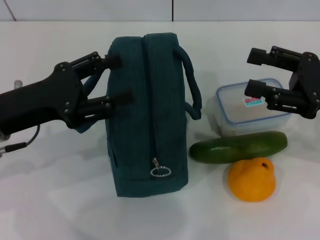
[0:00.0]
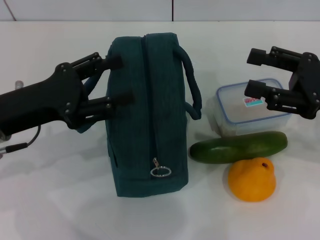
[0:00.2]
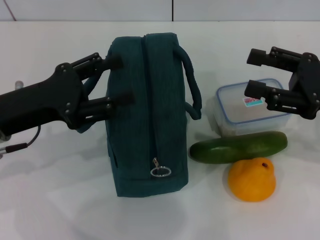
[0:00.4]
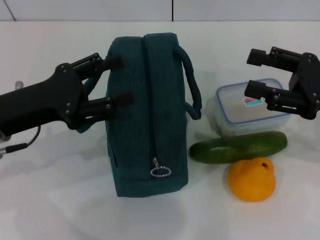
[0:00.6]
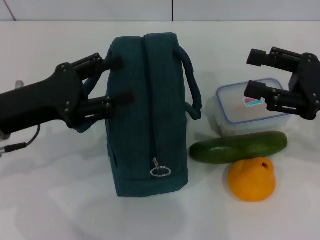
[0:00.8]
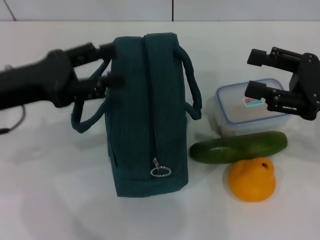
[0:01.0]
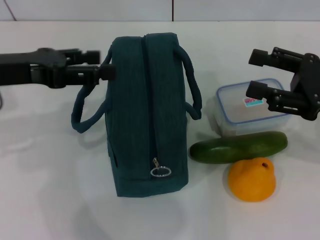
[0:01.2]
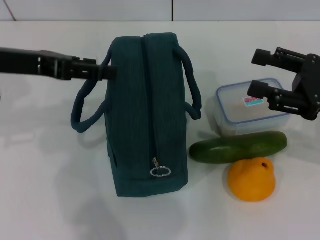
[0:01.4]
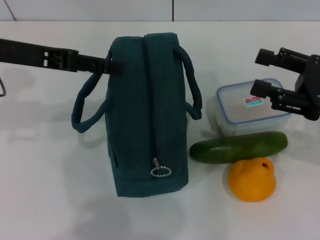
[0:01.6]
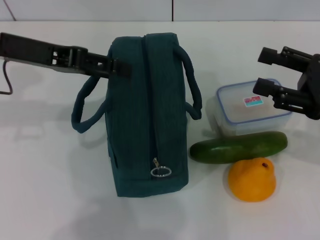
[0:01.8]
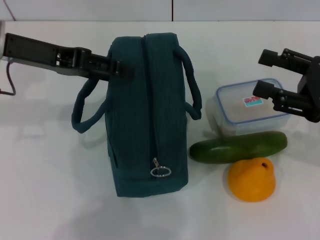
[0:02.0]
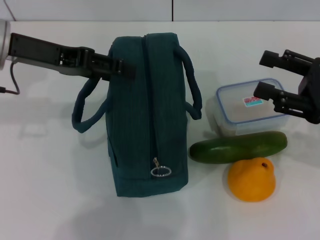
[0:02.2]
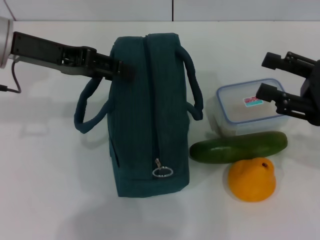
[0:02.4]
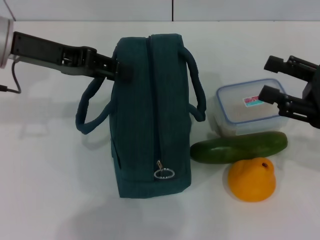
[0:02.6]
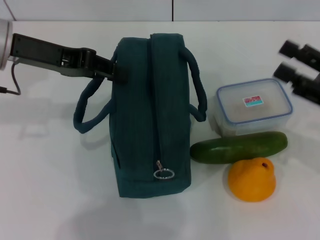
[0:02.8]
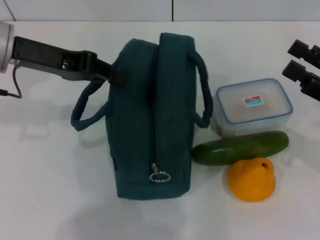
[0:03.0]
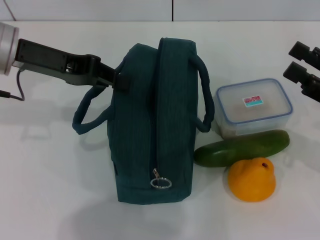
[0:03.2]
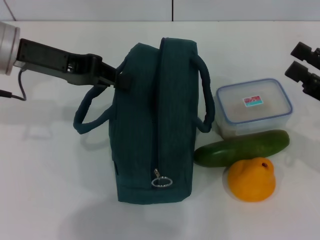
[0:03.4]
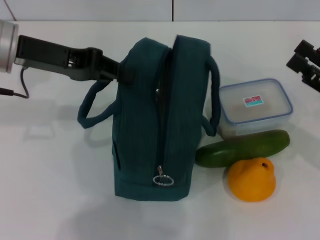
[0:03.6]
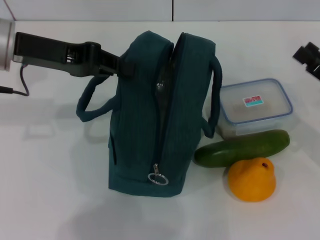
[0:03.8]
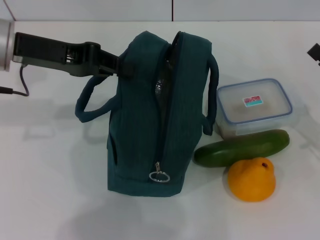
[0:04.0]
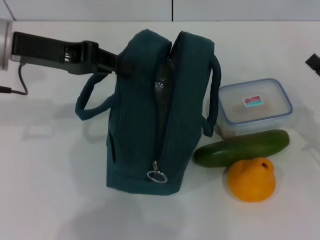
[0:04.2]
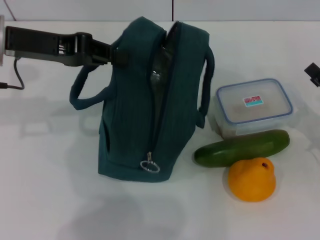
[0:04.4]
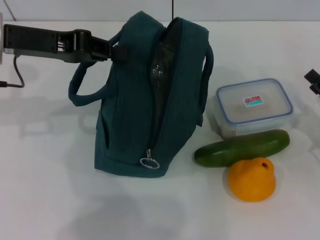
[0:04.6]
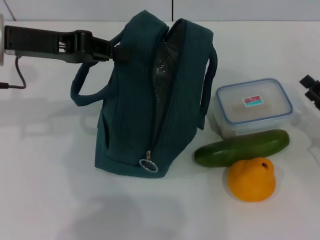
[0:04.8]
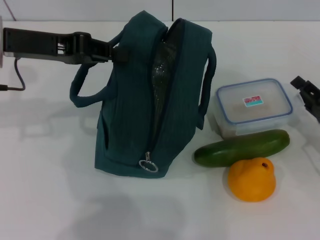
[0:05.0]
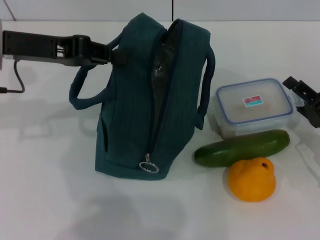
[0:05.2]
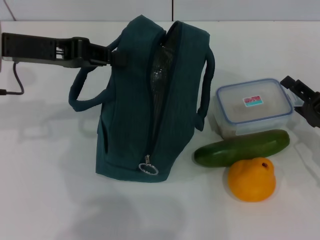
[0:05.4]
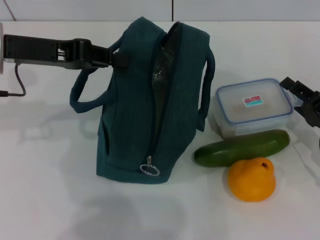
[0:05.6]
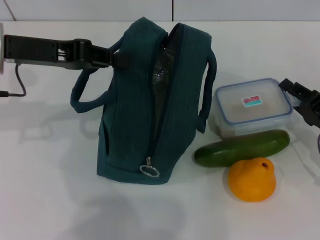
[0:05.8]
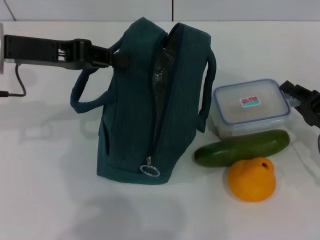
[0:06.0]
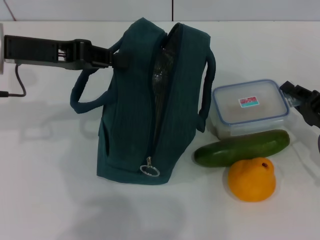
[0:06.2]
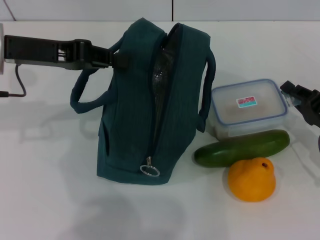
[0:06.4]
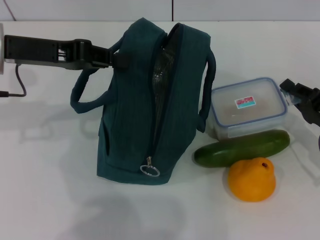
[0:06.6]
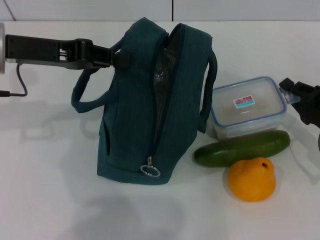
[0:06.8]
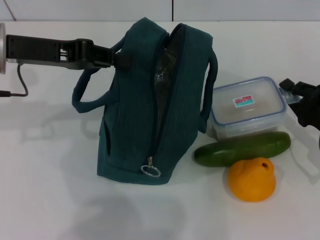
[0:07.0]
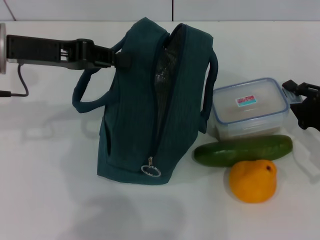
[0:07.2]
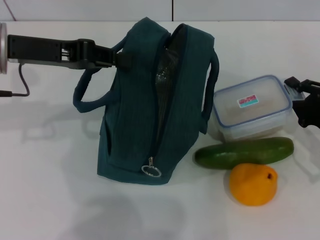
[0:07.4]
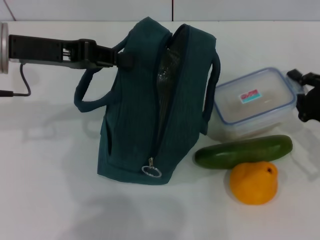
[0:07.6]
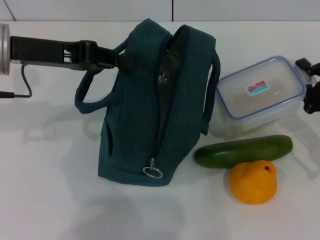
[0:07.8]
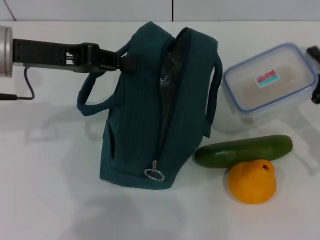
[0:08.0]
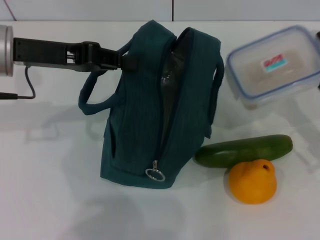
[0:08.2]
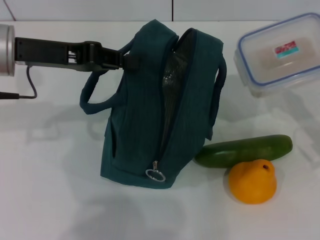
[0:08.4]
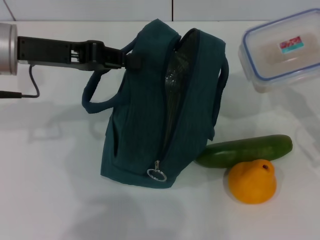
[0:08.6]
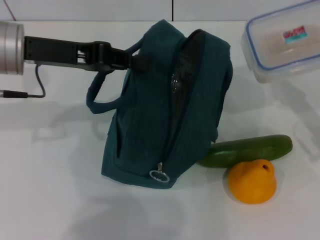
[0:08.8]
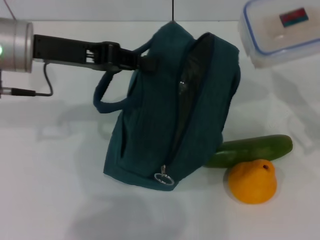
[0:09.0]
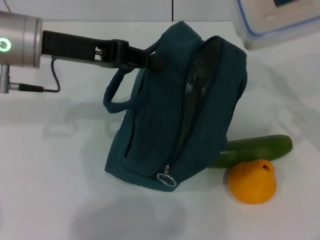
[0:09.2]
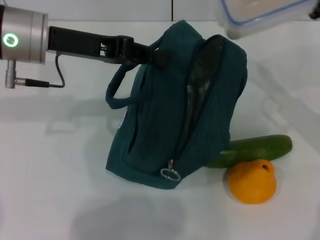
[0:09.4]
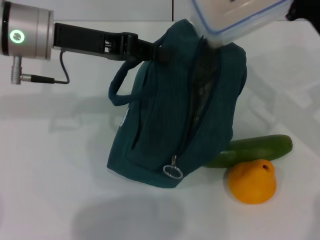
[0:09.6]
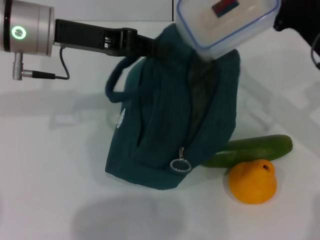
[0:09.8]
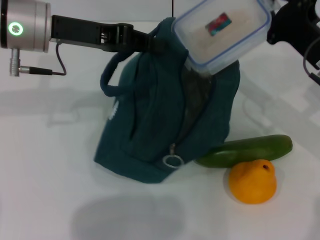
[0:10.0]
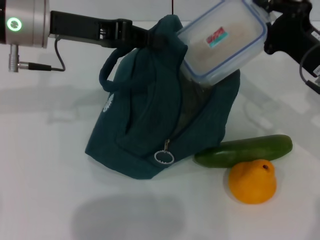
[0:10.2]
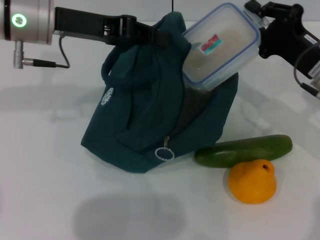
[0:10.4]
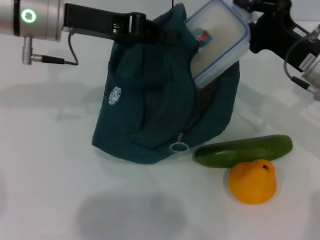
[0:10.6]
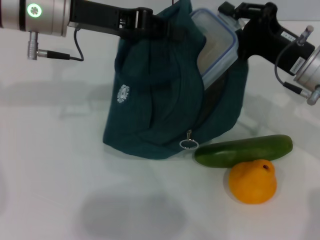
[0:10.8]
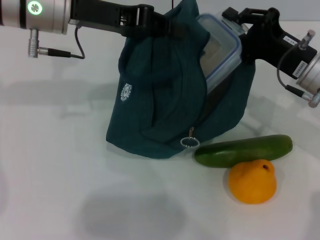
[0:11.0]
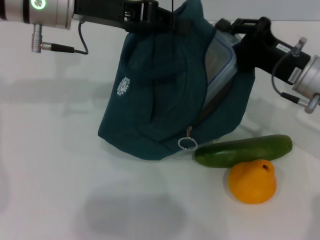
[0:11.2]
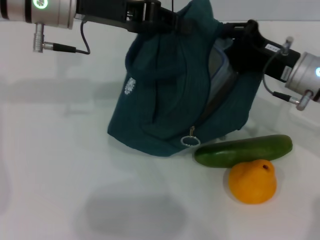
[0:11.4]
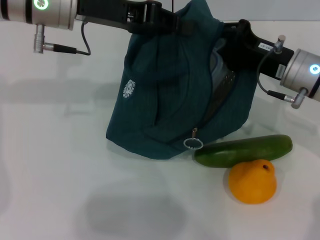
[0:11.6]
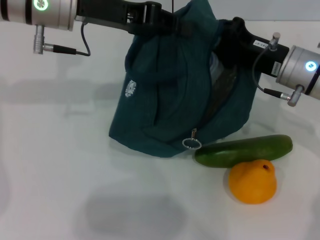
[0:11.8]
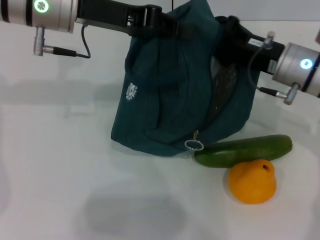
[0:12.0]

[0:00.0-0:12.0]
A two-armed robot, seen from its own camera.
Step, 0:00.0 to 0:03.2: Hold the lunch bag with your left hand.
Step, 0:03.4 to 0:06.8: Pick up the lunch box with your right hand.
0:00.0 to 0:01.6: The left gripper moves upward and forward, about 10 cm.
0:01.6 to 0:03.0: The left gripper closes.
0:03.0 to 0:04.4: The right gripper heads downward, covering some 5 cm.
0:04.4 to 0:06.0: There are only small adjustments of the grippers.
0:06.0 to 0:07.6: The right gripper closes.
0:07.6 to 0:09.0: The right gripper moves upward, some 5 cm.
0:09.0 to 0:10.4: The right gripper shifts roughly 10 cm to the left and forward.
0:10.4 to 0:12.0: The right gripper shifts by some 5 cm.

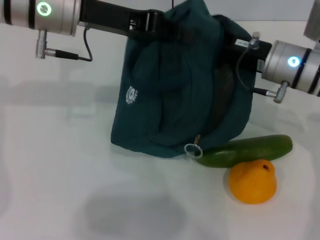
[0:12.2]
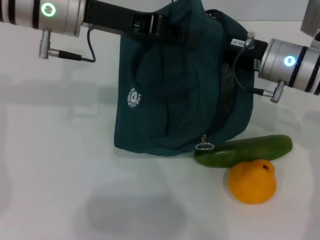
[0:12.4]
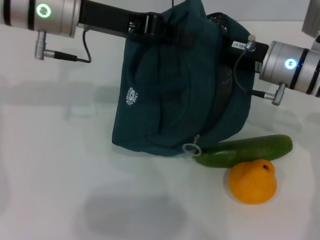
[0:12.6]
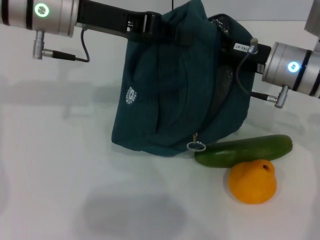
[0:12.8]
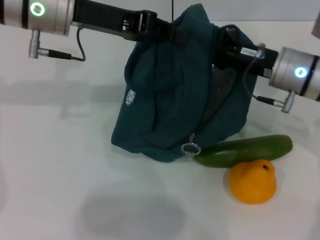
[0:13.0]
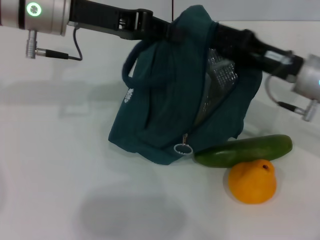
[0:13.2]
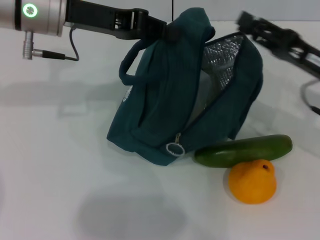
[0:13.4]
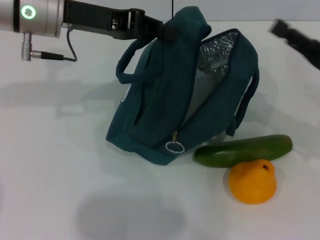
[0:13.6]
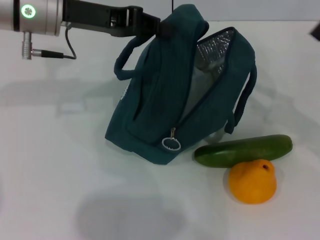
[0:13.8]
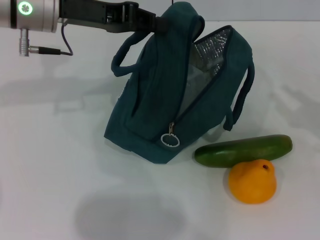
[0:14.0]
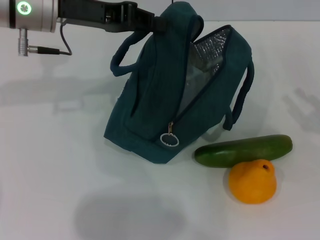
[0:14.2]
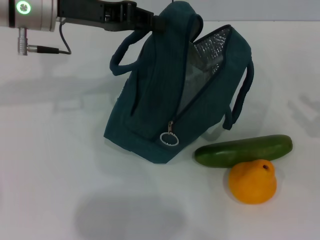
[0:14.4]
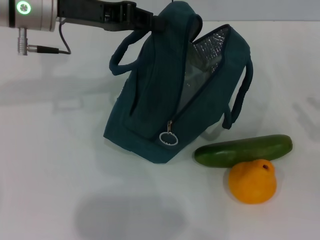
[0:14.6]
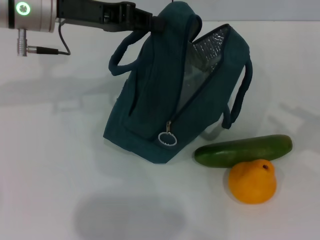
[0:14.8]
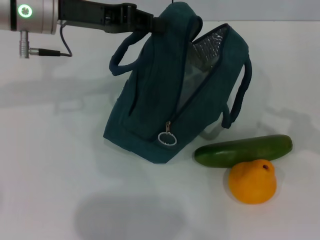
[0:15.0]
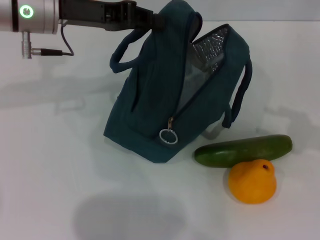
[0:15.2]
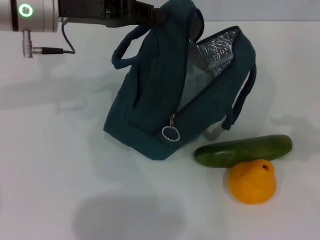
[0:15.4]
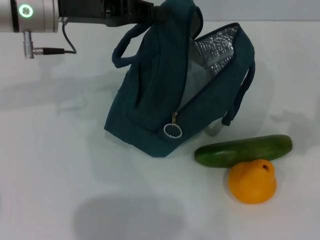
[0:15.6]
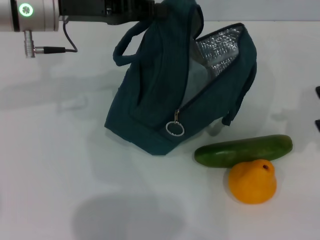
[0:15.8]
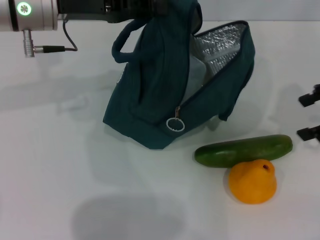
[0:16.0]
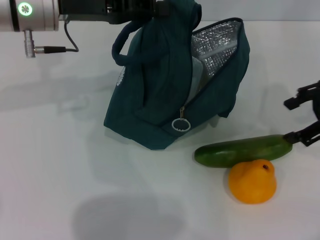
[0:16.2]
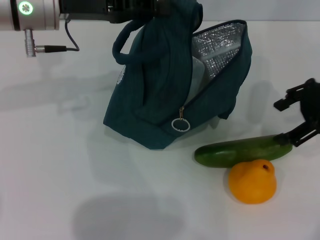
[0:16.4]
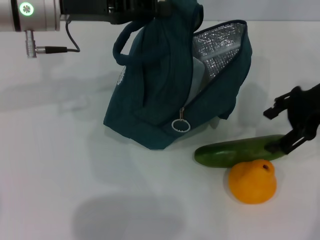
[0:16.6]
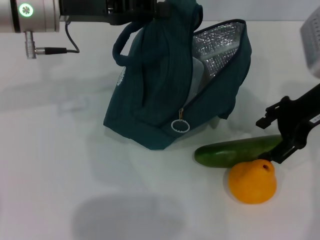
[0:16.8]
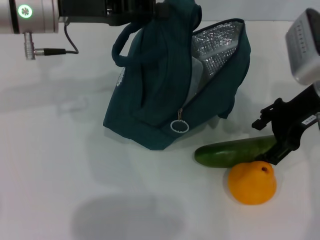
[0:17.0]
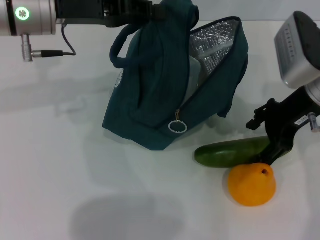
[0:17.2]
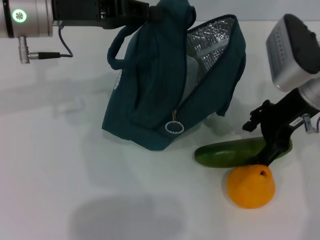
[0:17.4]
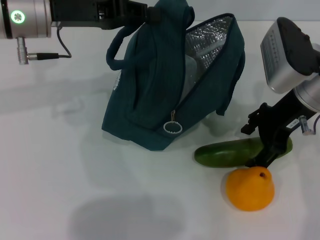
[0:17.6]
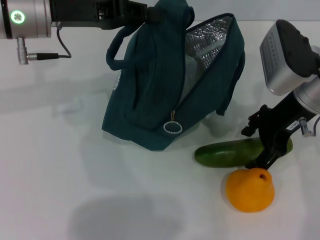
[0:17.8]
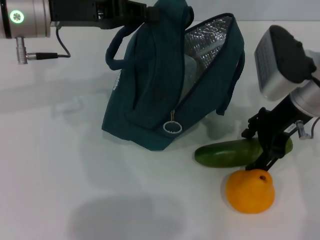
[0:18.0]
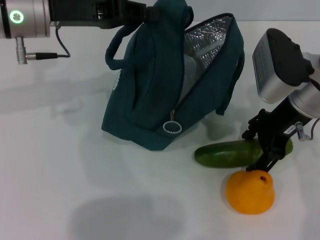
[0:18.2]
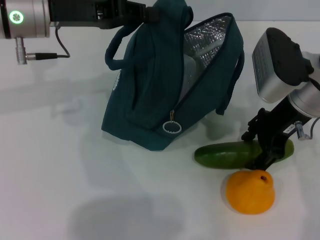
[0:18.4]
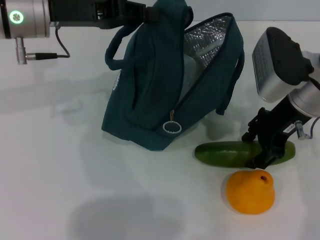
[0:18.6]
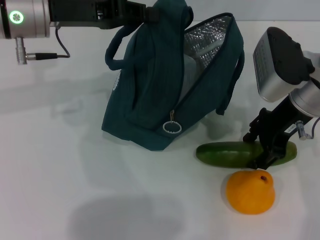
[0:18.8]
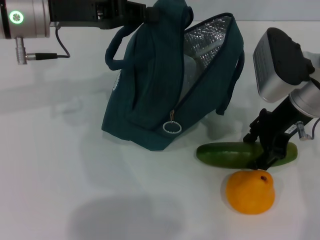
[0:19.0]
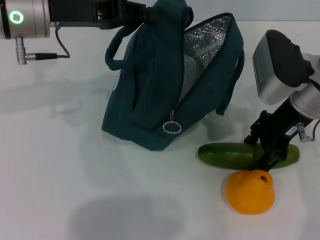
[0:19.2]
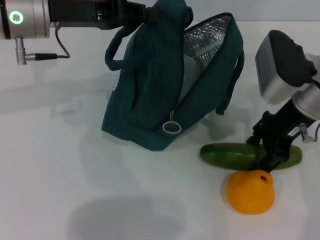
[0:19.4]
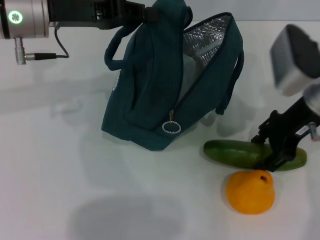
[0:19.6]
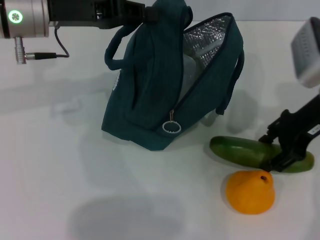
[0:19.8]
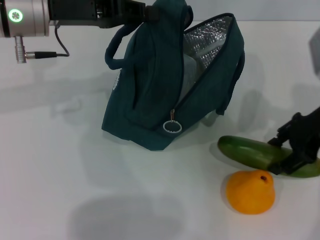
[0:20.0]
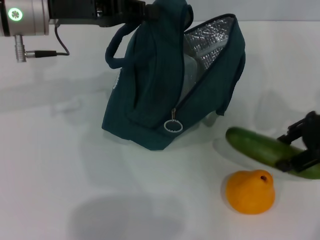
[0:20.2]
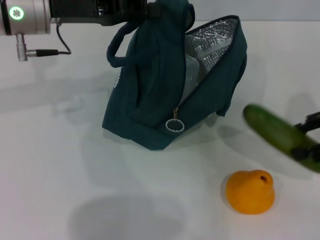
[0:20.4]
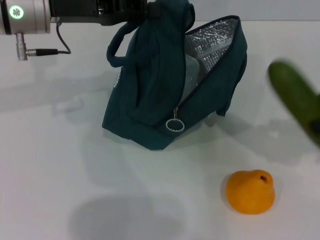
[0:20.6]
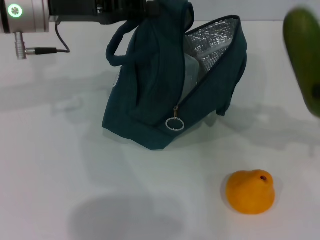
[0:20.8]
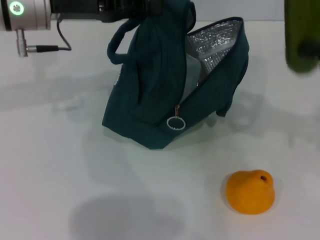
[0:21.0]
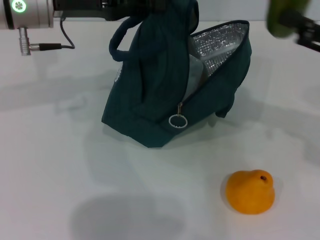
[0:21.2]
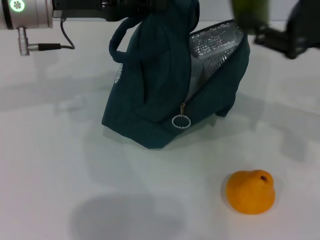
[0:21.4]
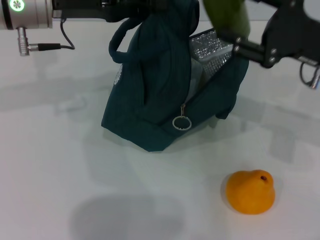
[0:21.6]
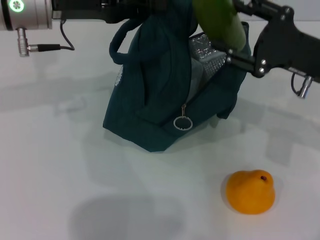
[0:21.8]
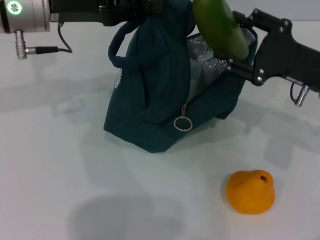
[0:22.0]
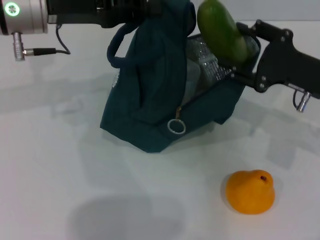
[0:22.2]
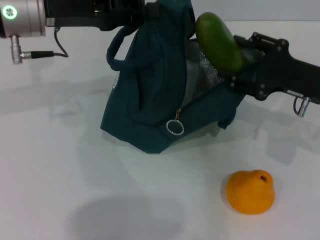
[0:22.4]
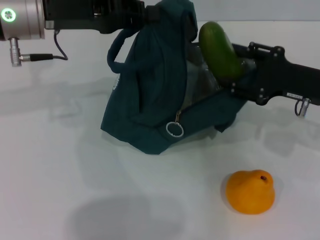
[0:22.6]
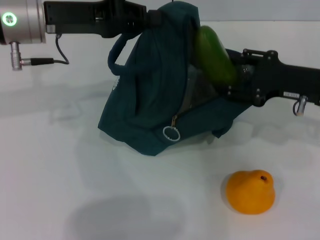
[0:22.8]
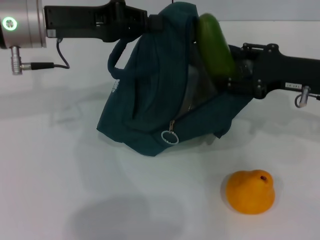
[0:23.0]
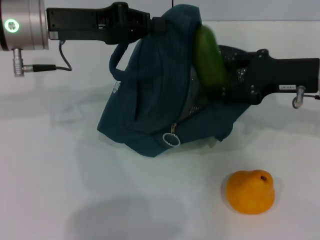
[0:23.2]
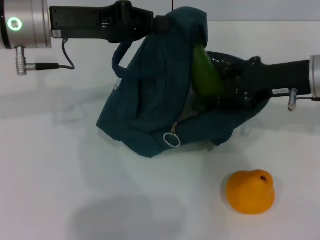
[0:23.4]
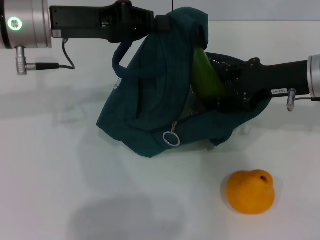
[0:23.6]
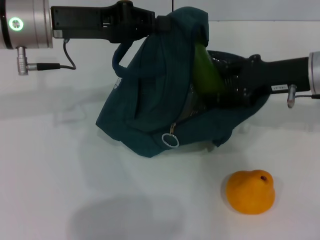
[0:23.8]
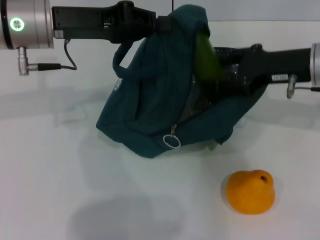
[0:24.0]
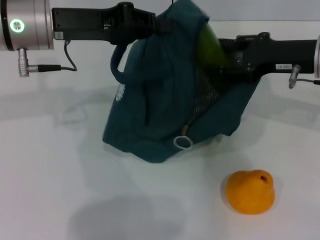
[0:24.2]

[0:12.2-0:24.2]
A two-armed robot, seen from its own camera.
Step, 0:13.4 to 0:18.8: Pick up the cucumber with your right hand.
0:12.2 to 0:13.8: The right gripper heads to the right and backward, covering roughly 20 cm, and opens its fingers.
0:13.8 to 0:15.2: The right gripper moves upward and to the right, some 10 cm.
0:15.2 to 0:16.6: The right gripper is displaced to the left and forward by approximately 15 cm, and opens its fingers.
0:16.6 to 0:18.2: The right gripper heads to the left, covering some 5 cm.
0:18.2 to 0:19.8: The grippers move only a little.
0:19.8 to 0:21.2: The right gripper shifts approximately 5 cm to the right.
0:21.2 to 0:22.6: The right gripper moves downward, some 10 cm.
0:22.6 to 0:24.2: The right gripper is displaced upward by approximately 5 cm.
